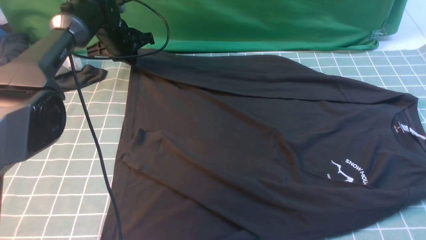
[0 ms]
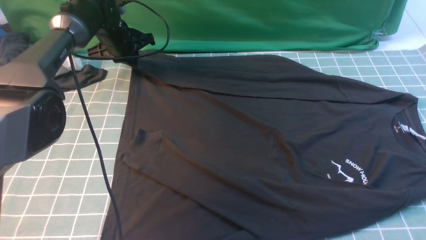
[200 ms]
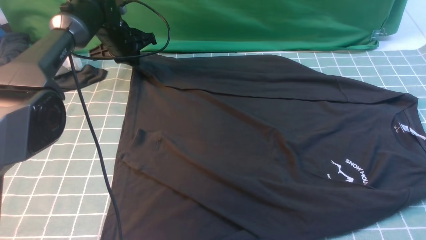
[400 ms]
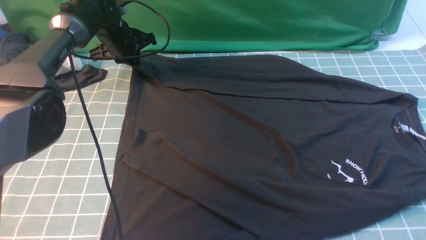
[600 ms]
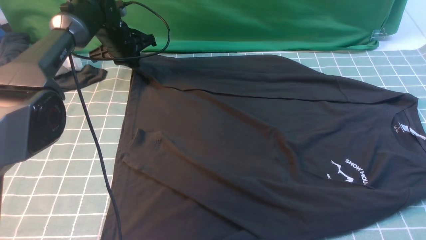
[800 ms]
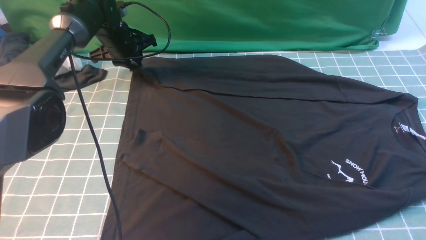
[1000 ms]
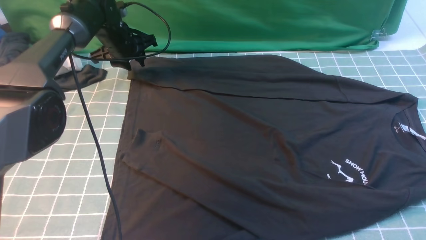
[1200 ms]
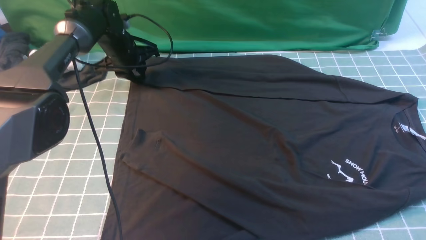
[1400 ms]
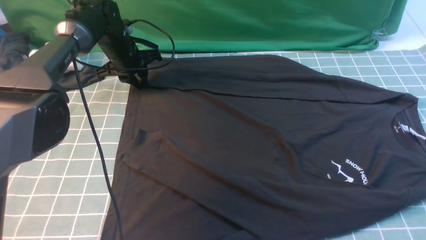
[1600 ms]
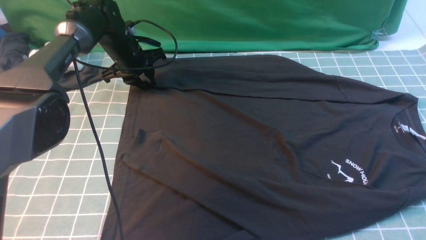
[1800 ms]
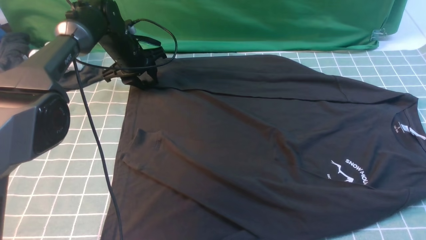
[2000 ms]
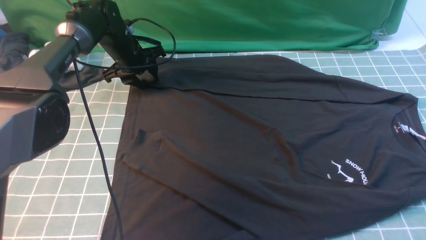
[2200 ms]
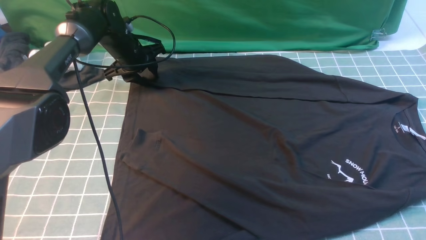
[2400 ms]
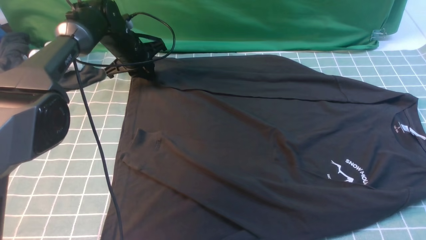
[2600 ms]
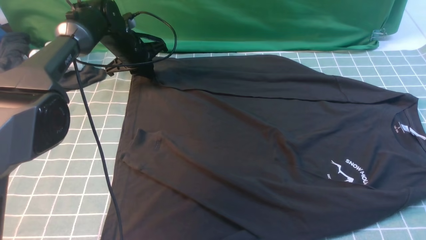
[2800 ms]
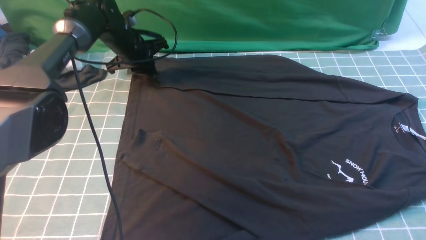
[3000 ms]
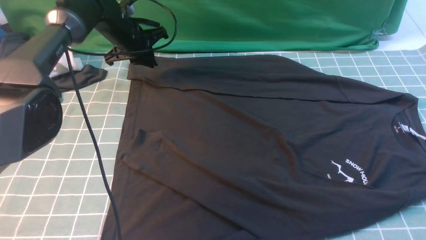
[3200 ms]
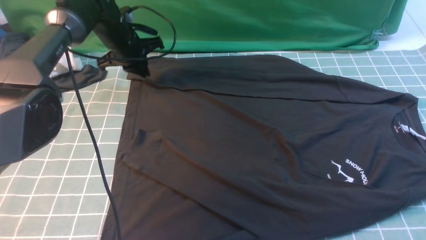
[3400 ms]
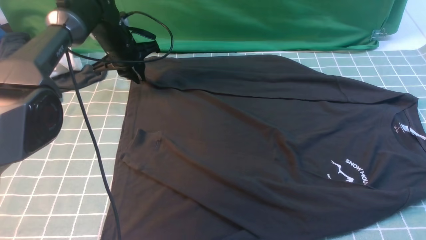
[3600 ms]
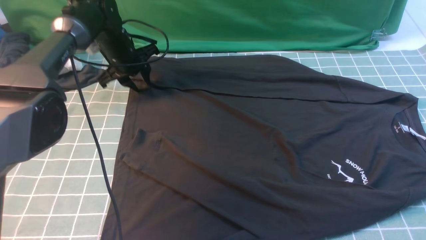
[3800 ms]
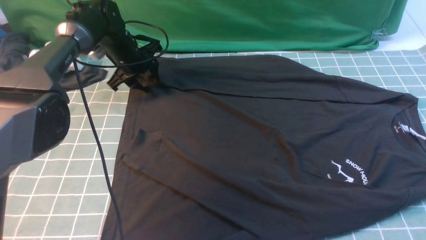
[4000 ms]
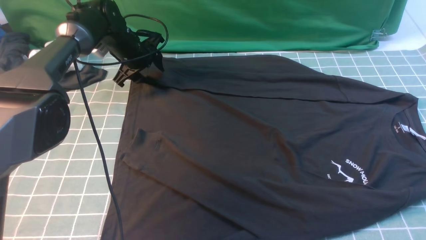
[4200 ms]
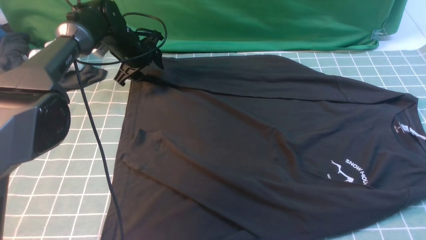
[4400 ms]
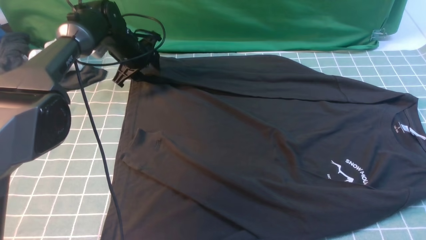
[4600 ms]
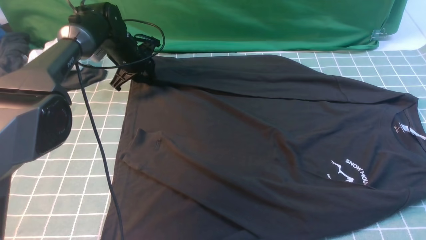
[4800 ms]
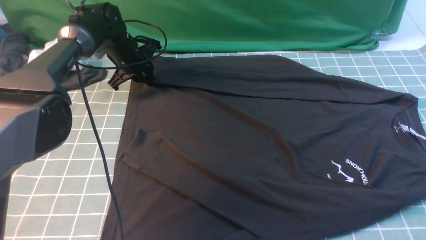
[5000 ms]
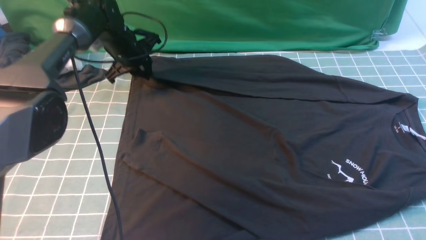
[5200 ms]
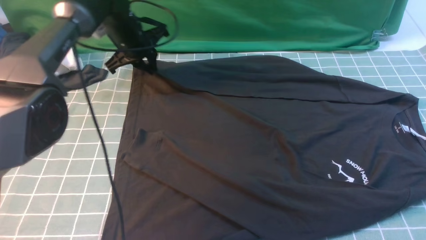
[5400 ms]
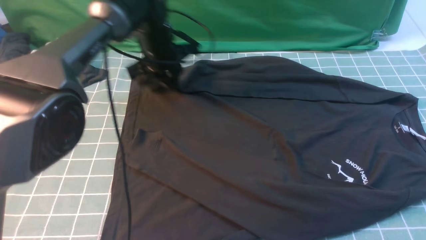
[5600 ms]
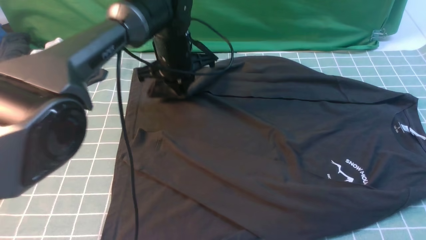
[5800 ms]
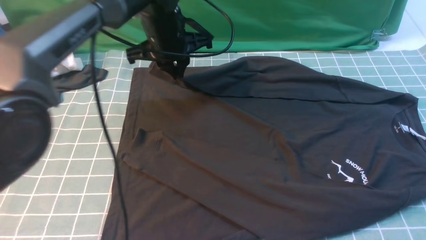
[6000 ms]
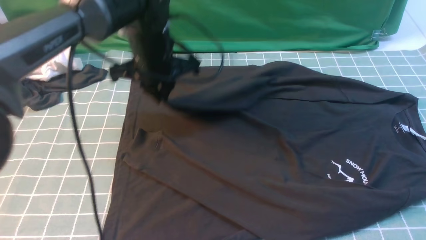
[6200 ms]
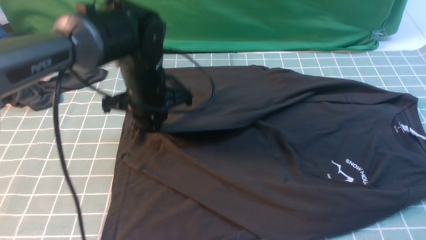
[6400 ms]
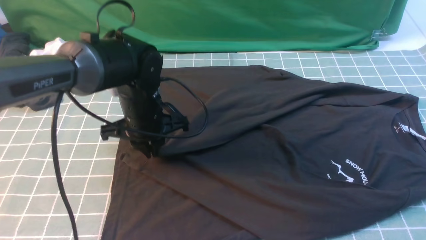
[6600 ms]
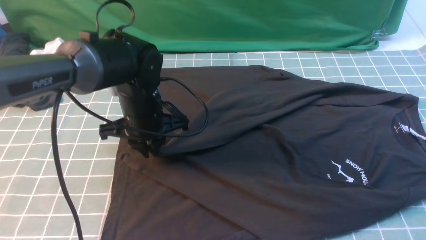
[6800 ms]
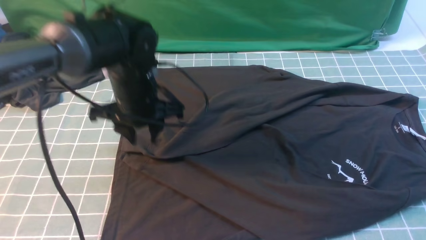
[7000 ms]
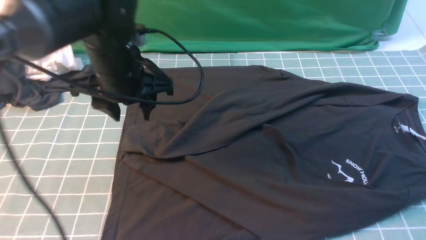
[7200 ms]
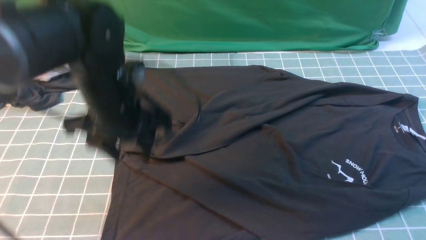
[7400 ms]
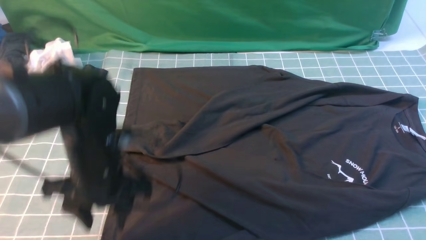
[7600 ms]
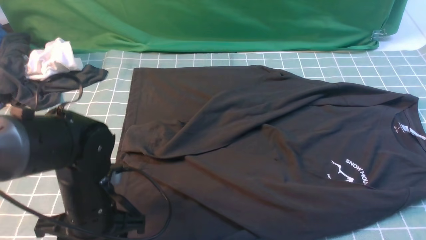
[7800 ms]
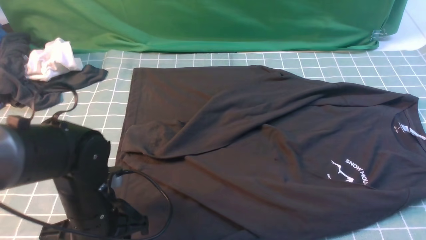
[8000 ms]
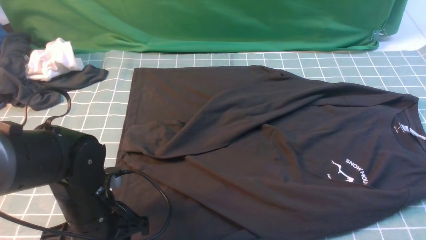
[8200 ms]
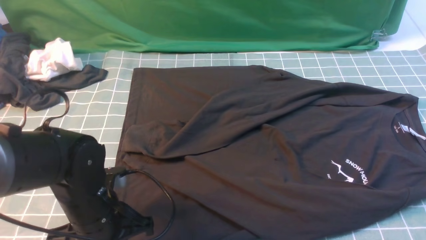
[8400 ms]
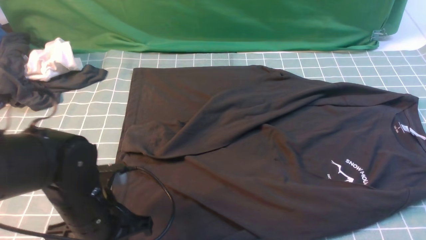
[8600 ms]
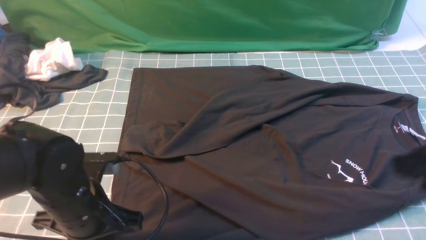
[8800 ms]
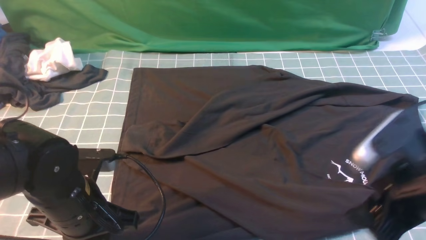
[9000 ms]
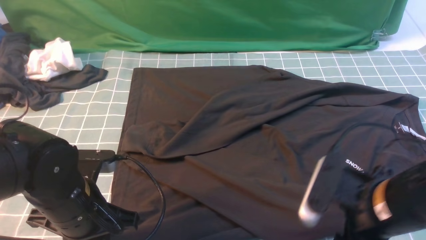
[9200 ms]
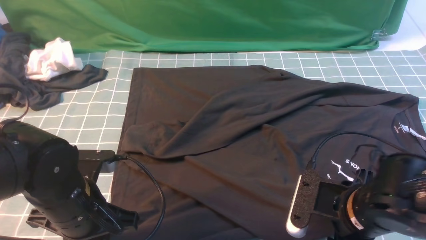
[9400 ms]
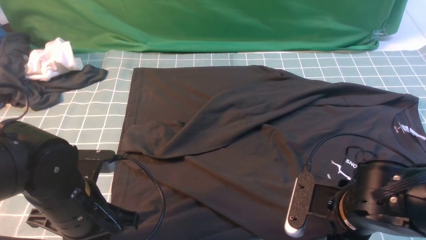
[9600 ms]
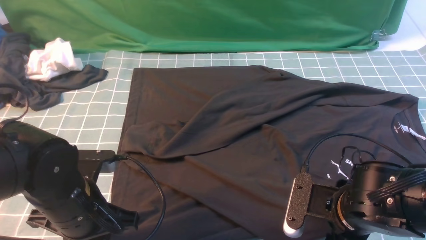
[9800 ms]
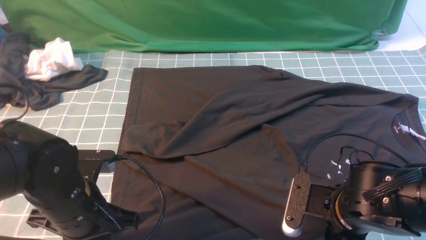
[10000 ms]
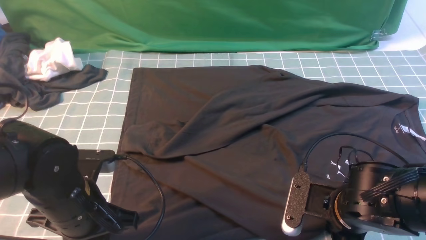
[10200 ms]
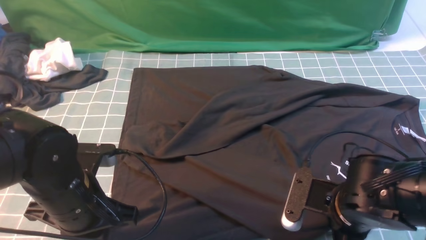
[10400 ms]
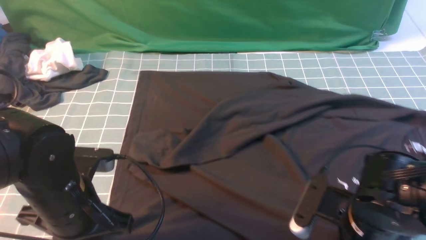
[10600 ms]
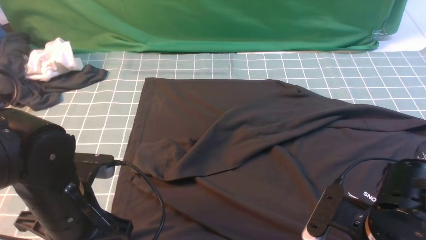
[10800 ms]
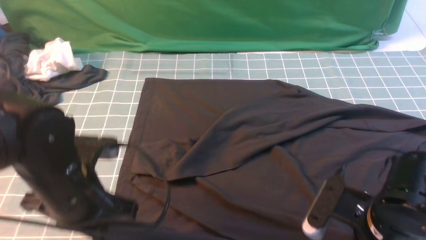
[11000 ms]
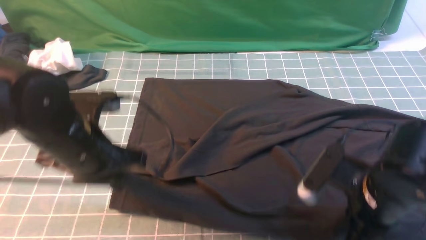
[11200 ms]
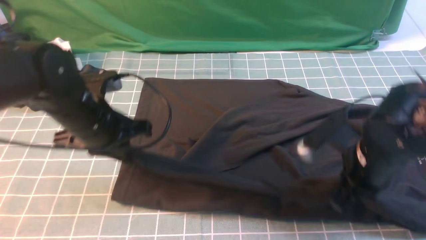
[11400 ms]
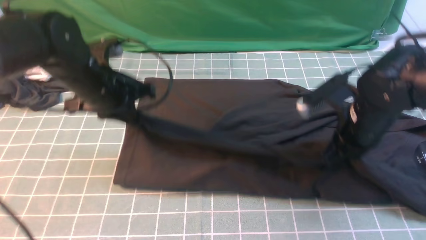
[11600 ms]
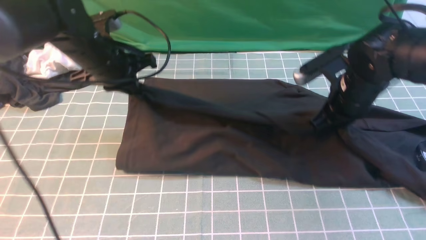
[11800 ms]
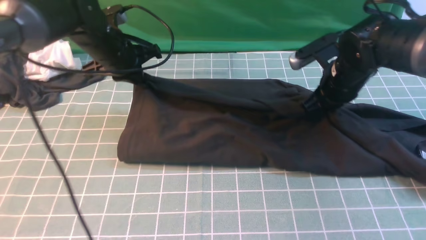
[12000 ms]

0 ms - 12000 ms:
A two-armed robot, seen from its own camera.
Step, 0 ms - 5200 ms: use the left arm to clamp the cuff farthest from it.
Step, 5600 ms - 7200 ms: use the left arm to drag and drop the cuff onto the cuff closest to the left arm.
Step, 7600 ms - 11000 ms: use both arms simultaneously to clamp the lower edge of the clothing fabric.
0 ms - 1600 ms: The left gripper opens its fingers.
1600 ms - 3000 ms: The left gripper closes.
3000 ms - 4400 ms: The left gripper opens.
4400 ms - 6000 ms: The left gripper shifts some 20 cm backward, to the right and upward, and closes its fingers.
6000 ms - 7600 ms: The left gripper is displaced backward by approximately 20 cm, and opens.
7600 ms - 9000 ms: The left gripper travels backward by roughly 5 cm, and closes, while the right gripper moves downward and to the left, about 15 cm, and opens up.
9000 ms - 10400 ms: The right gripper heads downward and to the left, covering some 10 cm, and closes.
10400 ms - 12000 ms: Both grippers move forward, about 25 cm.

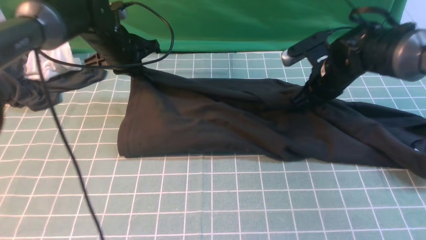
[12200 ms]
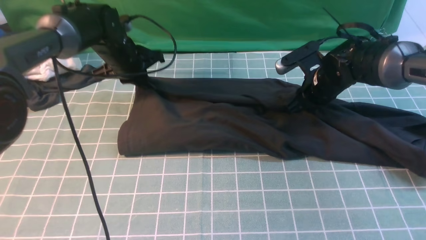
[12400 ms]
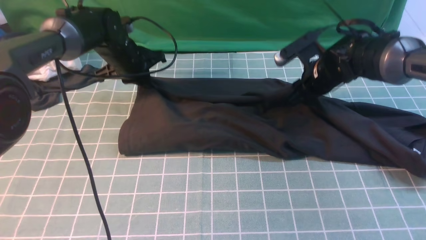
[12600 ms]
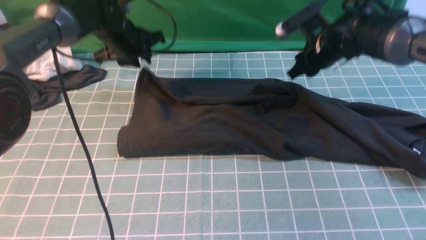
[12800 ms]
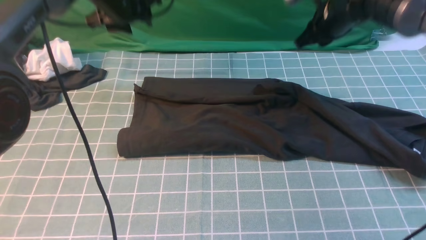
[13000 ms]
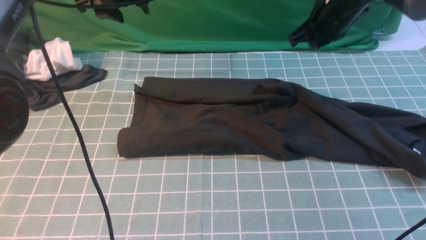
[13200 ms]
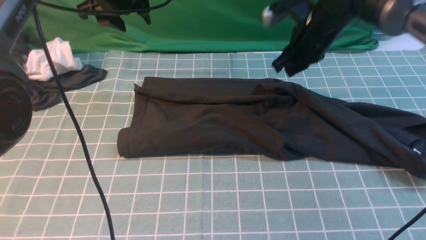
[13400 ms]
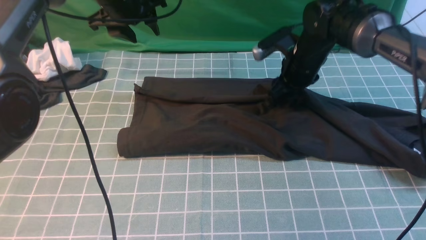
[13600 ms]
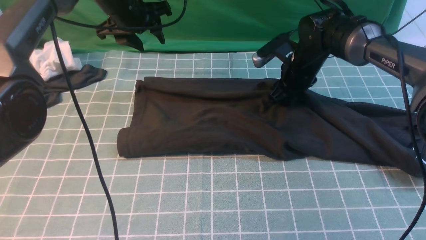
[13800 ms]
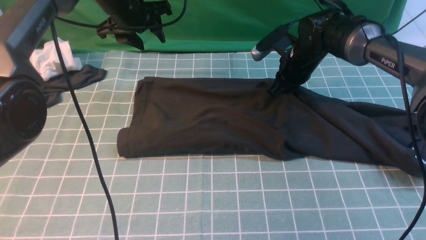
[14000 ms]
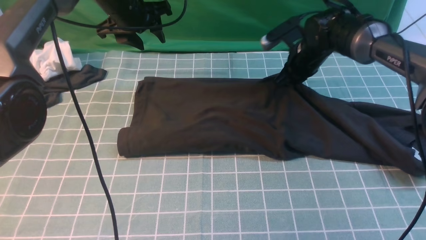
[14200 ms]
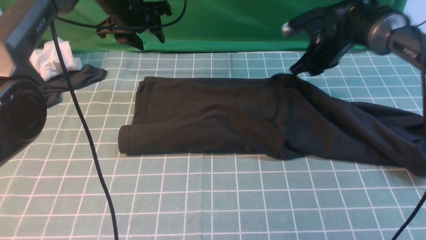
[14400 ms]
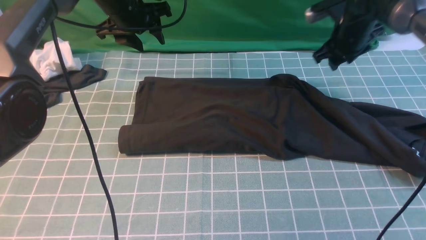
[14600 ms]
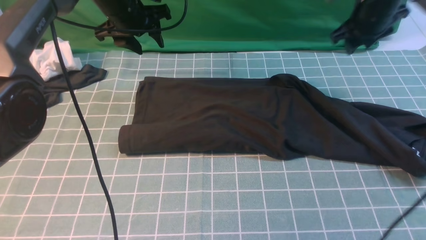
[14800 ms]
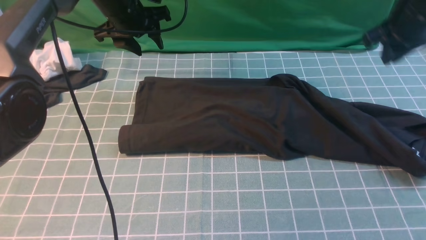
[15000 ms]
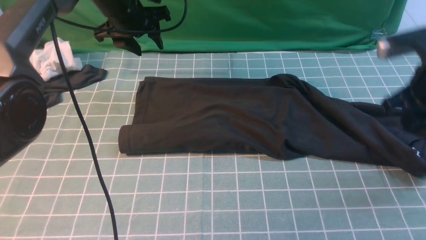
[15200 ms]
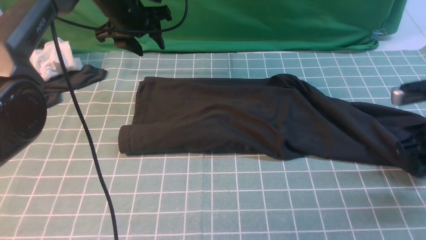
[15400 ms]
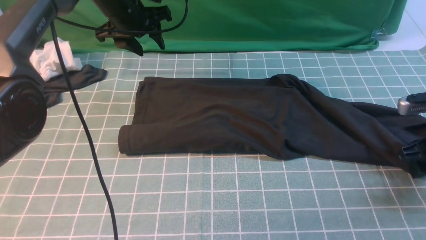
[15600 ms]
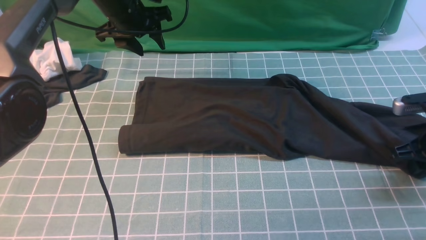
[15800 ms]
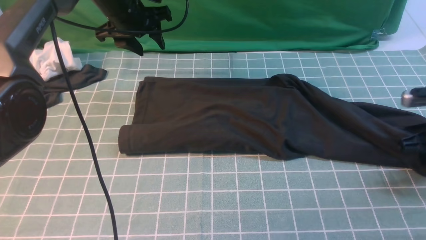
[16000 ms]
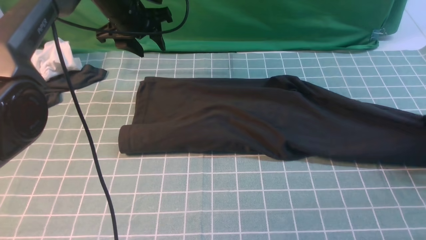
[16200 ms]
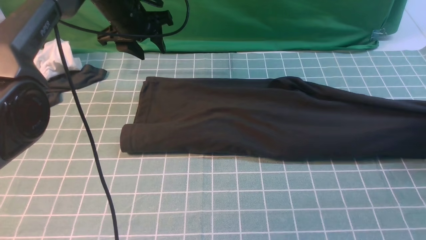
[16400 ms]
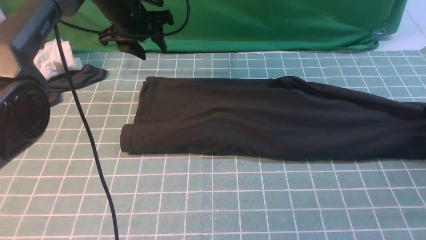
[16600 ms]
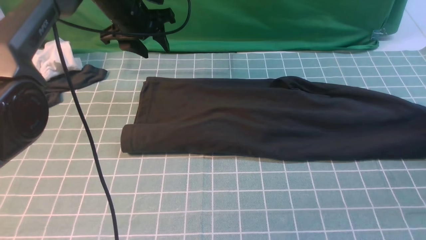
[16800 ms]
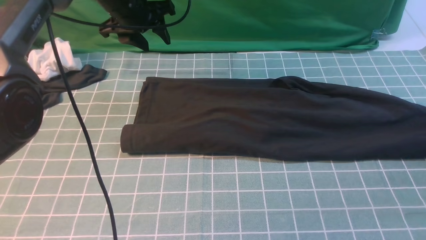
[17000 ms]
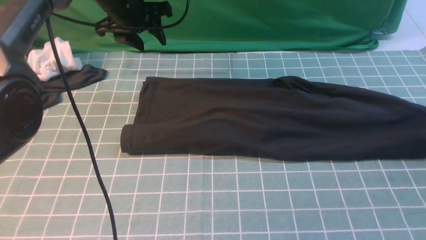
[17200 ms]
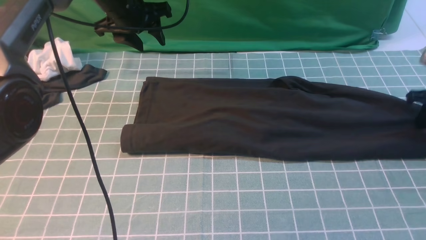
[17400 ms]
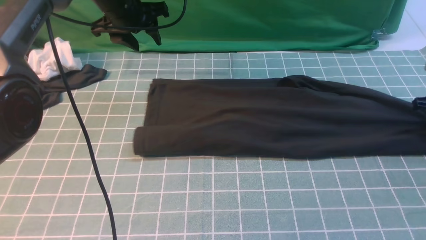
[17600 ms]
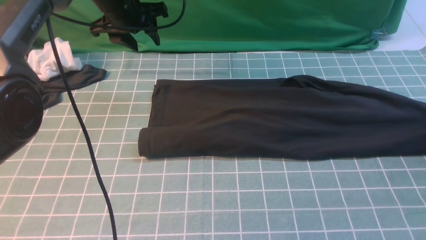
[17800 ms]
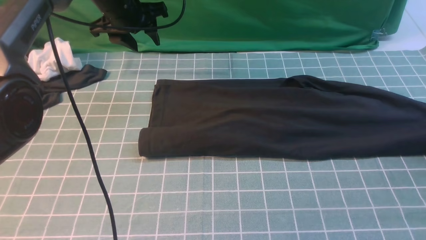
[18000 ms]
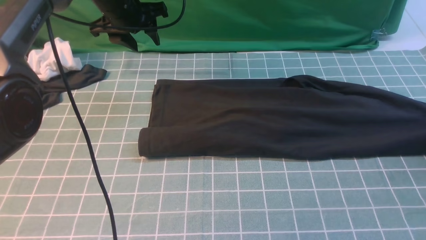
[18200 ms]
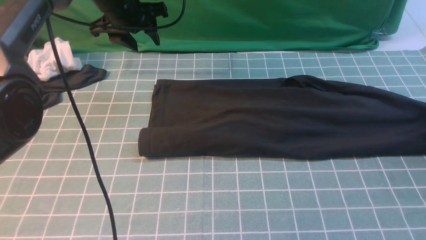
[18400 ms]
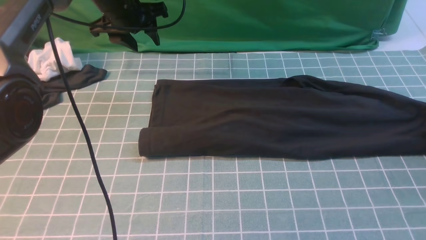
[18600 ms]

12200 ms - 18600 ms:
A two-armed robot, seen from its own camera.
Step, 12200 ms - 14400 ms: use both arms to drag the lower edge of the fabric forward and fold it over the upper edge.
12200 ms - 13800 ms: The left gripper heads upward, covering approximately 5 cm, and opens its fingers; the right gripper goes about 5 cm forward, and goes upward and returns, approximately 10 cm each way.
13800 ms - 15400 ms: The right gripper is displaced to the right and backward by roughly 25 cm, and closes, then opens again.
15400 ms - 17000 ms: The right gripper travels to the right and forward by some 15 cm.
17000 ms - 18600 ms: The right gripper moves up and down over roughly 10 cm, changing direction 2 times.
